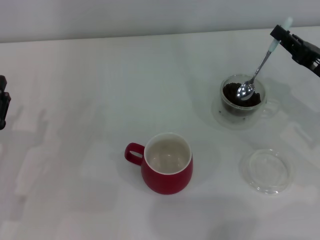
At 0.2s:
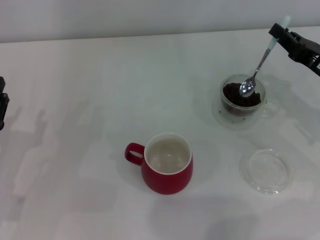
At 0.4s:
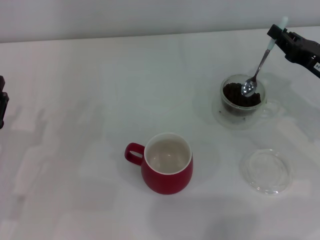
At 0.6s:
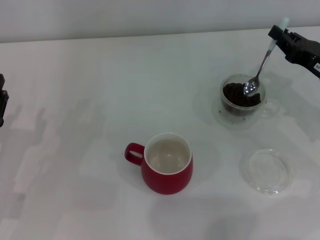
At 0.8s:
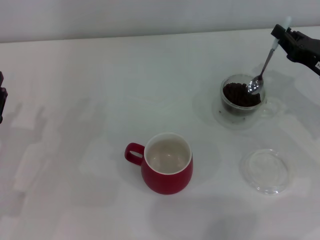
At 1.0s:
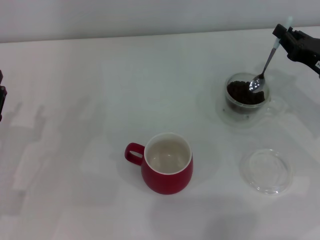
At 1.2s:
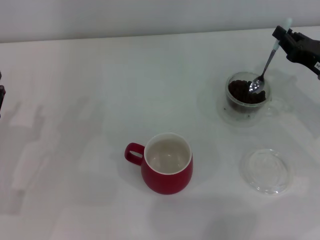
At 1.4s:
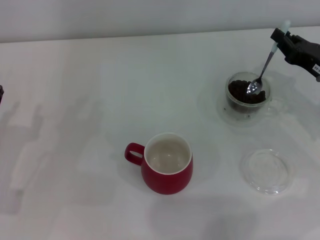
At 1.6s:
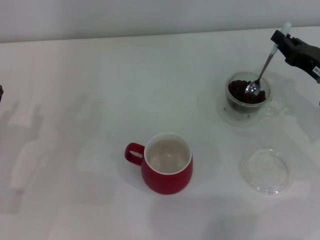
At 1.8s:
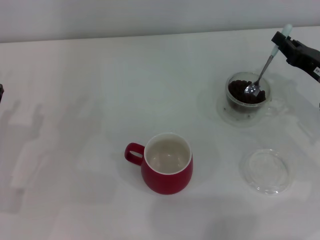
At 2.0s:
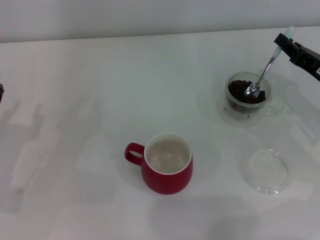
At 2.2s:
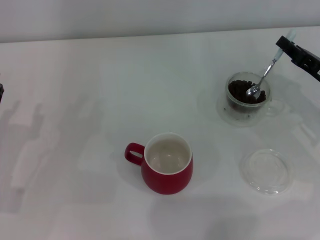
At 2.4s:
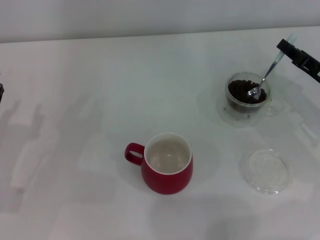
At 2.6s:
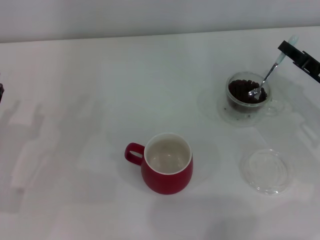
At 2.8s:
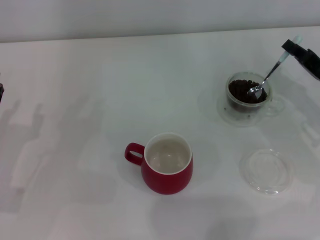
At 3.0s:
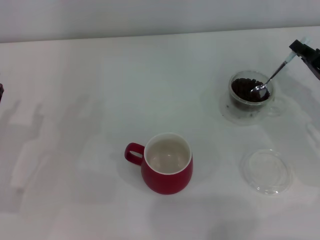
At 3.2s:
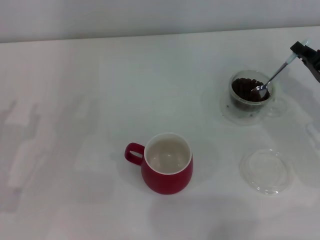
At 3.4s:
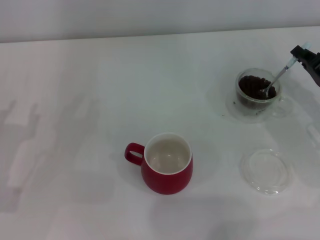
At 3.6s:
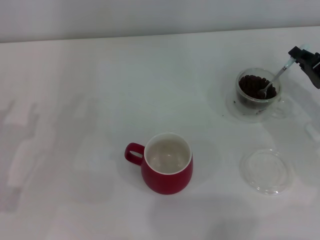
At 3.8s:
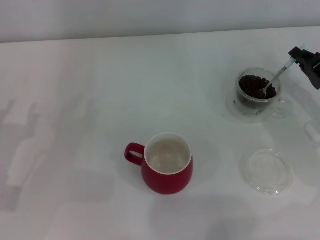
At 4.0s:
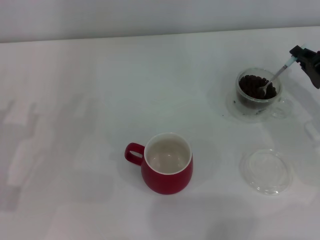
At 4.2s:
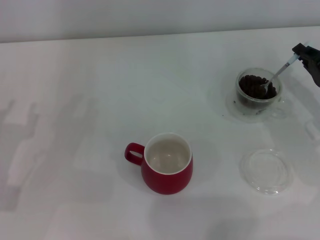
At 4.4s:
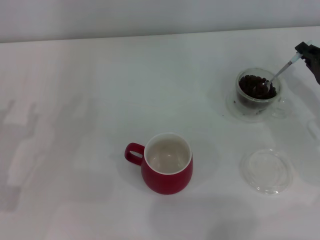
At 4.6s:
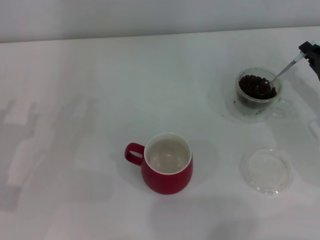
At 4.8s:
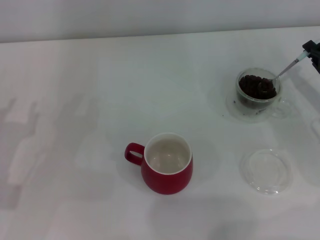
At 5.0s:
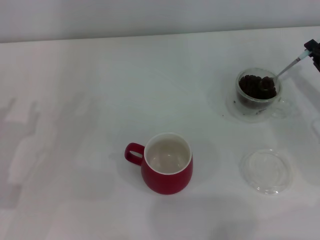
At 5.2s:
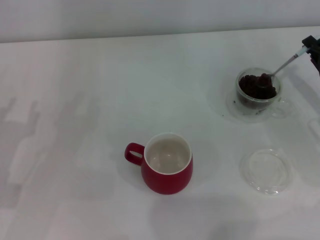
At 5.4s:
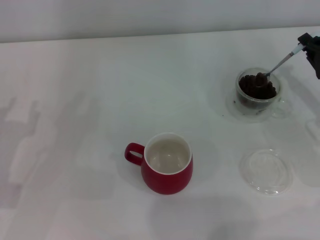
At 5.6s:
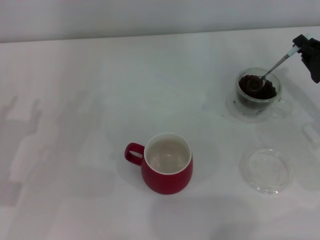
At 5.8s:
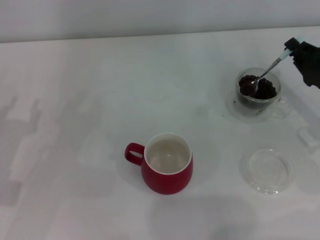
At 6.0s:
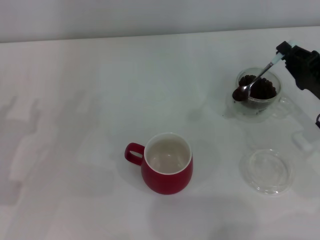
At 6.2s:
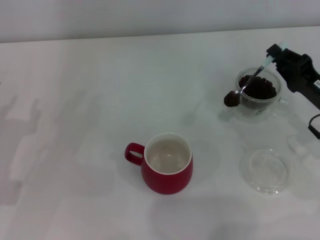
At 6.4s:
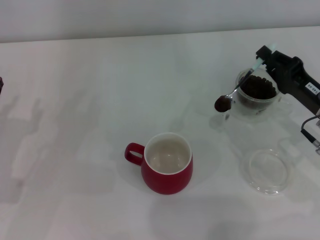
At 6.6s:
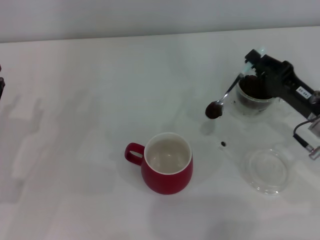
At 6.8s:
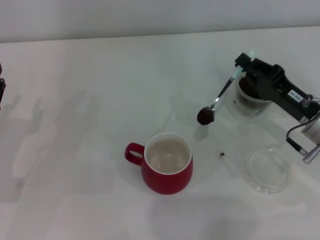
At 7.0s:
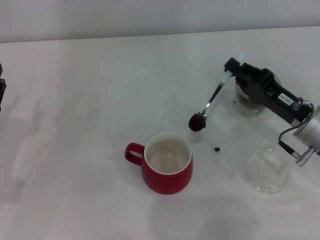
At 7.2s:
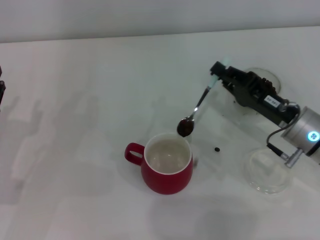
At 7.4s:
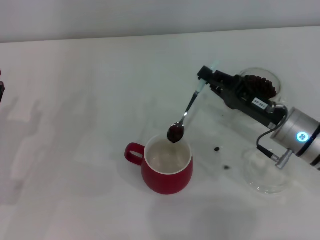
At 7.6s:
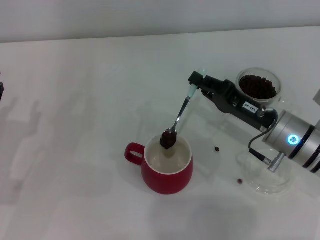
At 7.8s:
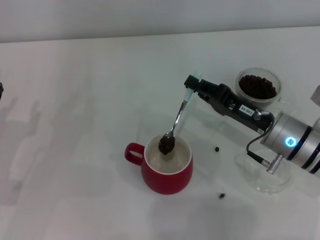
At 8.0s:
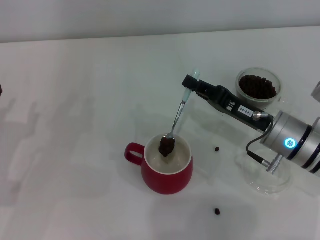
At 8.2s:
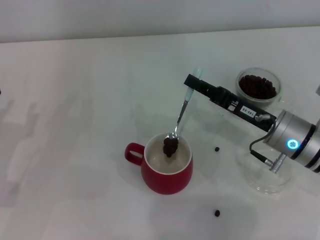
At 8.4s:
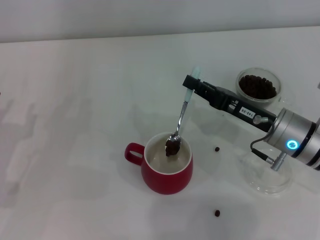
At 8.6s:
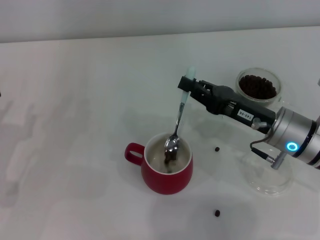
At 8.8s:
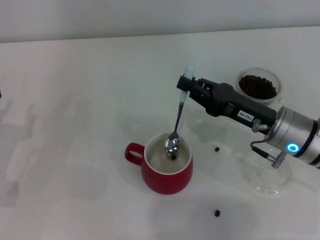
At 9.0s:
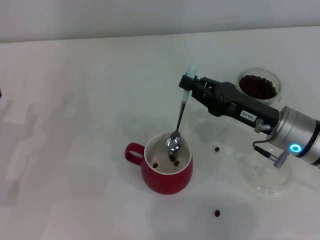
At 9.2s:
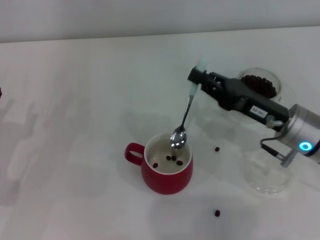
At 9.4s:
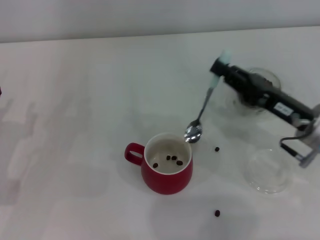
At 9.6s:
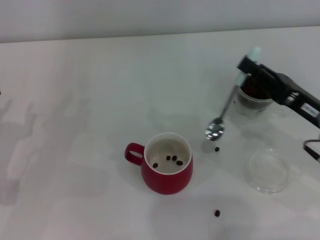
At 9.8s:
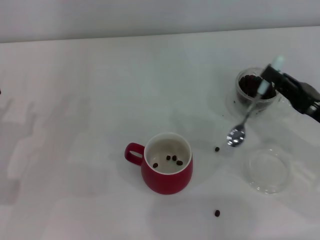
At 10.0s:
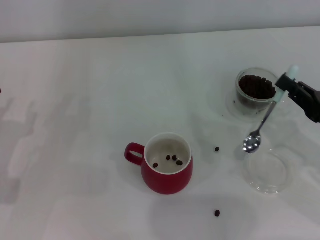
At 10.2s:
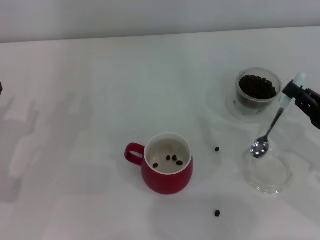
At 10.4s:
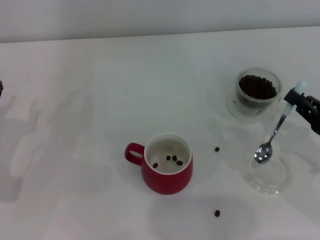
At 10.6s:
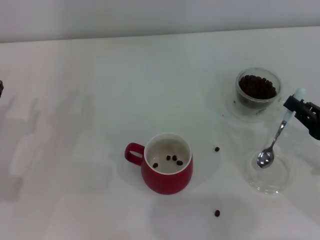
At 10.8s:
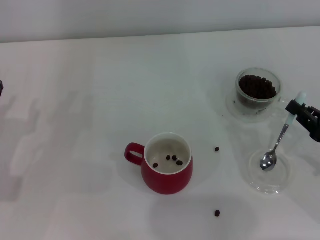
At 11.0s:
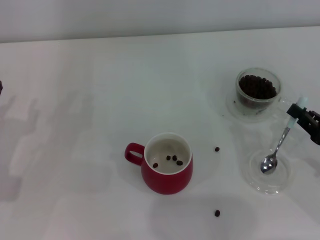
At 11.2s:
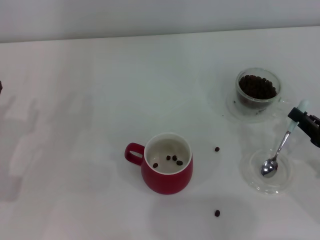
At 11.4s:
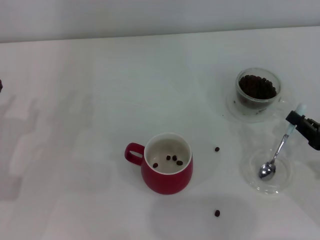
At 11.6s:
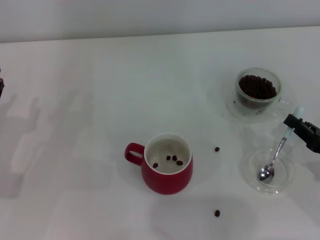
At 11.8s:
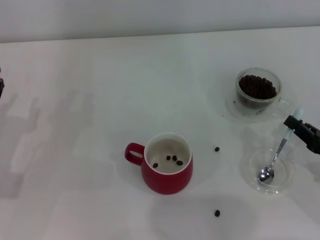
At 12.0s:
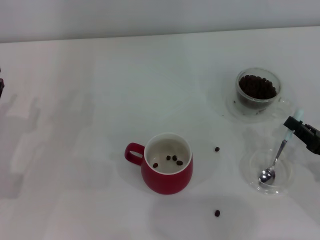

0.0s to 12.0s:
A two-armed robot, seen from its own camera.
Task of the whole recording: Use a blue spoon to take out the coffee beans from the glass and pour them into the red cup.
Step, 0.0s to 9.0s: Scoop a spoonful of beans into the cup with the right gripper.
0.0s to 1.6s: The grippers make only small movements.
3.0s to 4.4s: There are only small adjustments of the grippers.
4.4s to 6.0s: There are only small adjustments of the grippers.
6.0s to 7.6s: The right gripper goes roughly 10 cm to the left.
9.0s to 10.4s: The right gripper moves to the right and backward, some 15 cm.
10.4s to 12.0s: The grippers make only small movements.

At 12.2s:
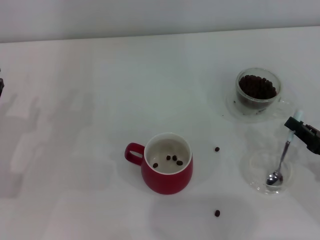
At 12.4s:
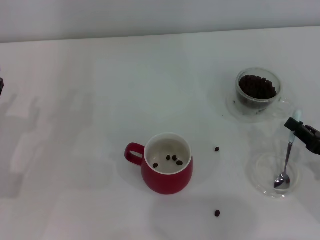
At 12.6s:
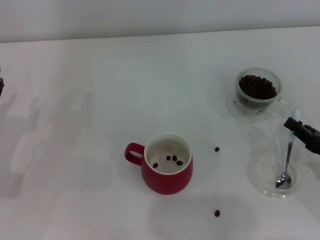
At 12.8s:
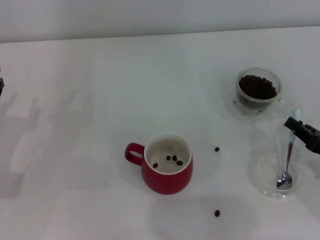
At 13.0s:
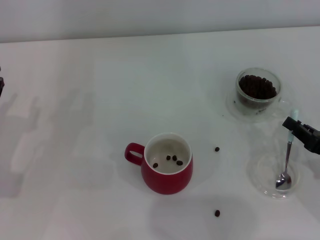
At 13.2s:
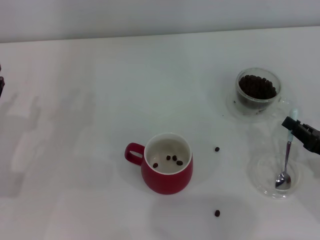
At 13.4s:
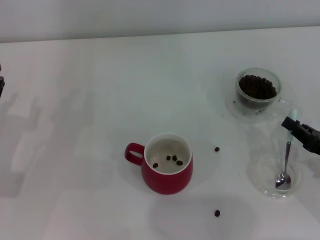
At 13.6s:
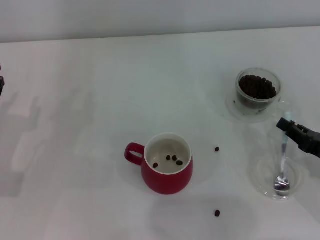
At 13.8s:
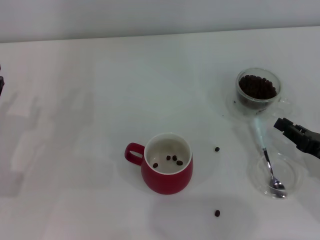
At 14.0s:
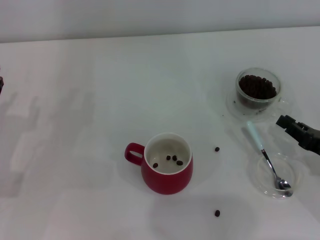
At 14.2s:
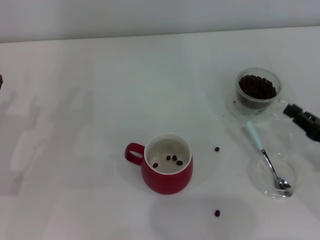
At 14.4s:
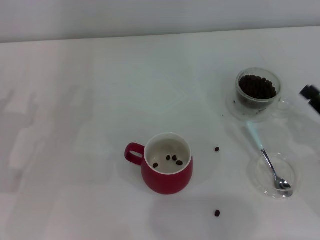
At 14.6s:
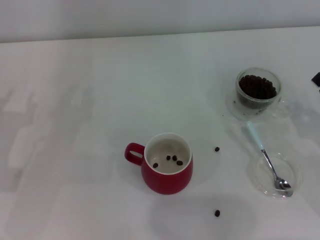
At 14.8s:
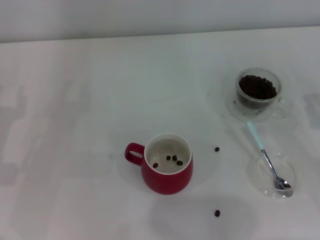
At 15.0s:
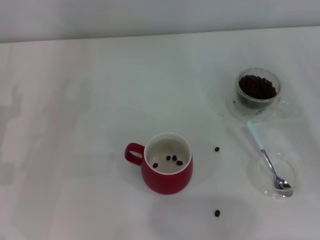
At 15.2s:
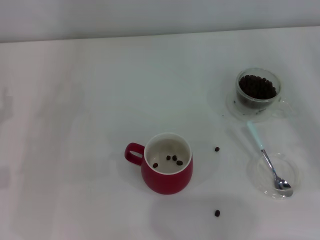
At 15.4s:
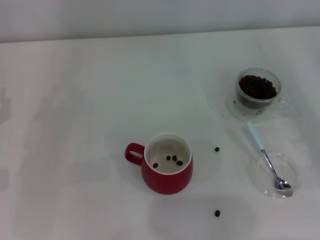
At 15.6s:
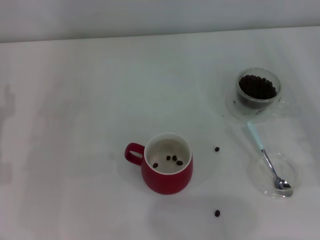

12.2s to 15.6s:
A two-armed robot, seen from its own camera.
Task of the whole recording: Use a blue spoon to take out the coffee beans from the glass and pour them into the red cup.
12.2s to 13.8s: Both grippers stay put.
13.8s to 15.6s: The right gripper is displaced to the right and upward by some 10 cm.
